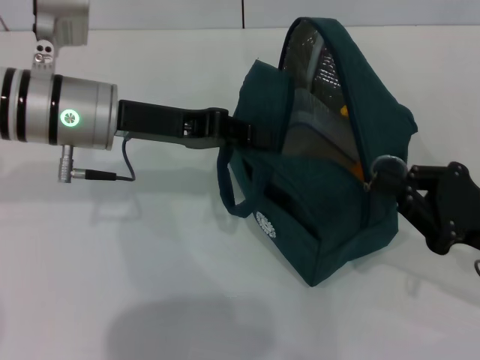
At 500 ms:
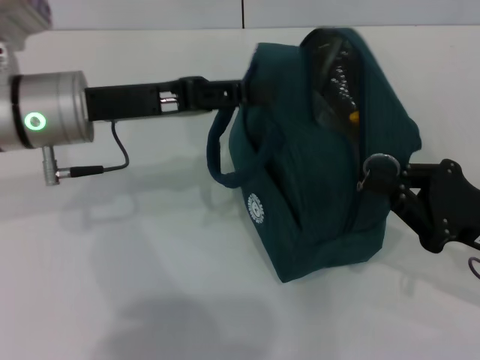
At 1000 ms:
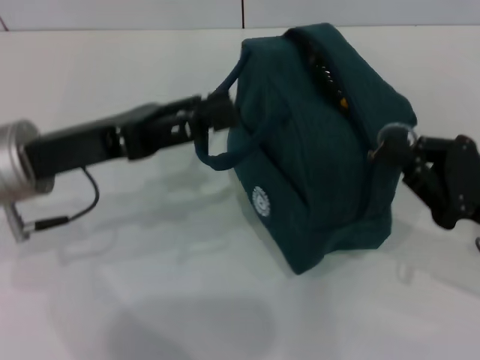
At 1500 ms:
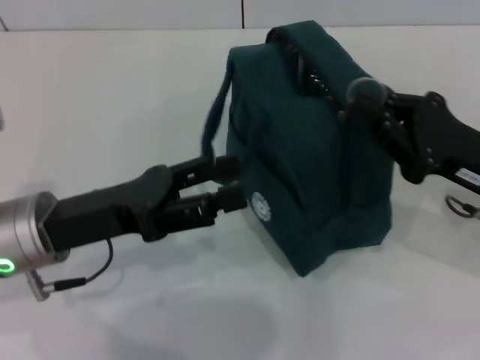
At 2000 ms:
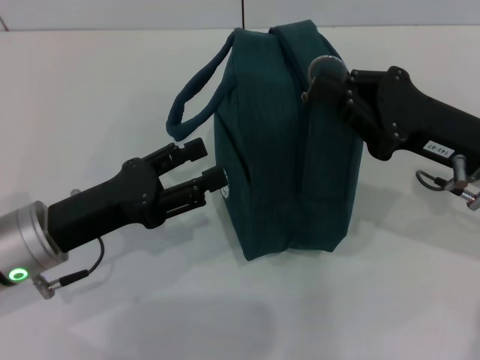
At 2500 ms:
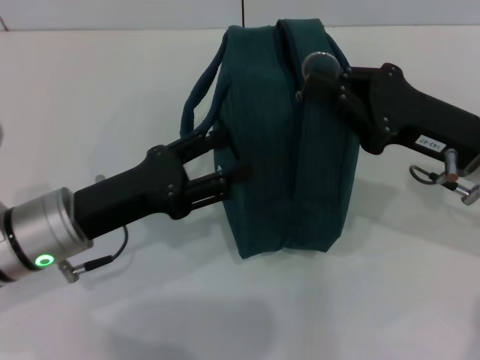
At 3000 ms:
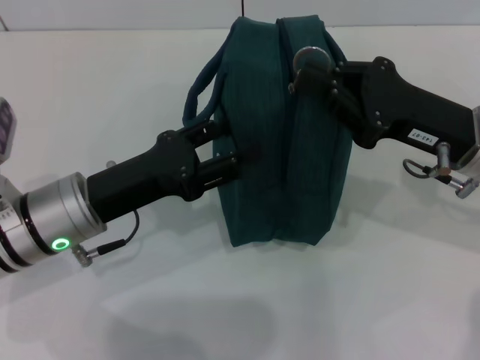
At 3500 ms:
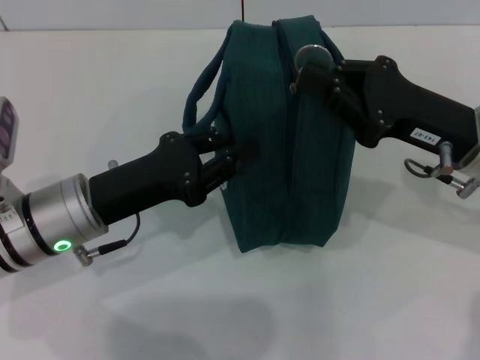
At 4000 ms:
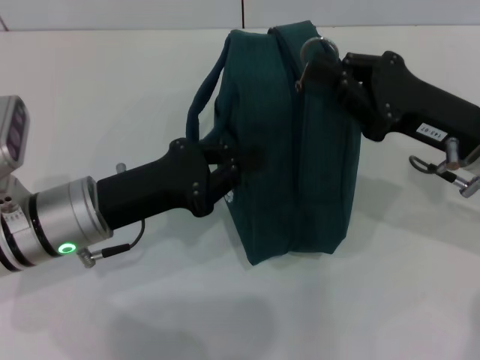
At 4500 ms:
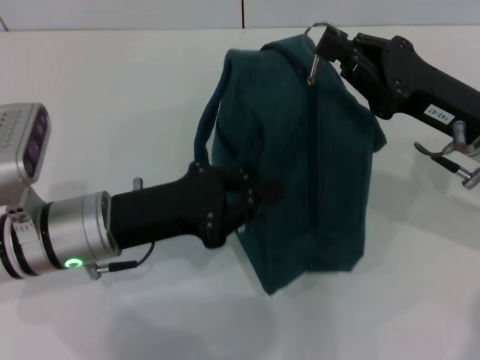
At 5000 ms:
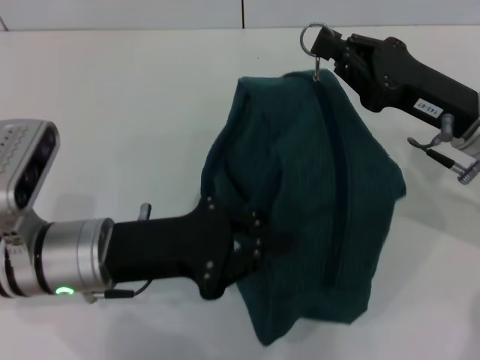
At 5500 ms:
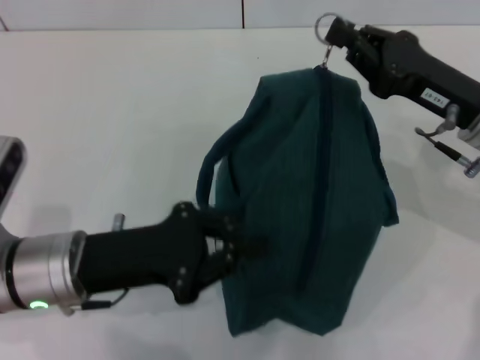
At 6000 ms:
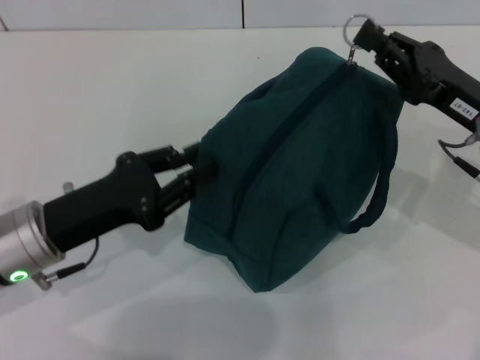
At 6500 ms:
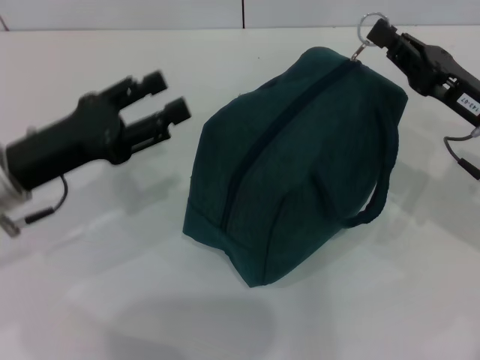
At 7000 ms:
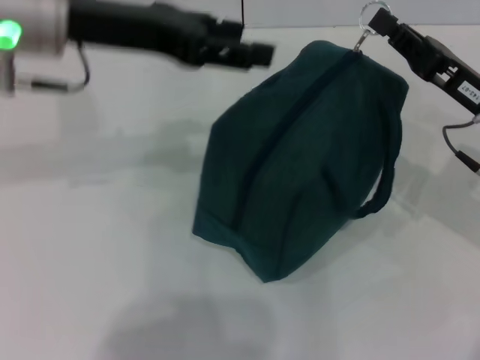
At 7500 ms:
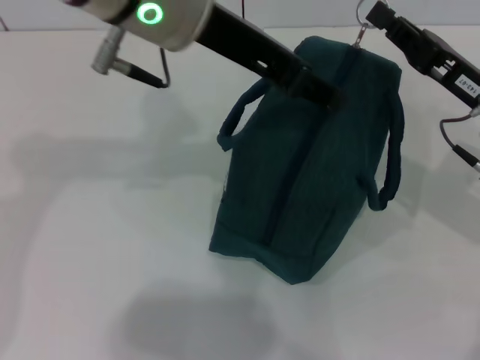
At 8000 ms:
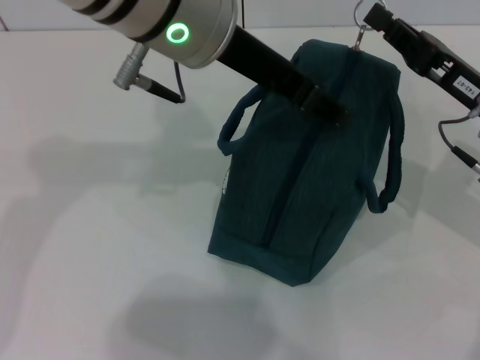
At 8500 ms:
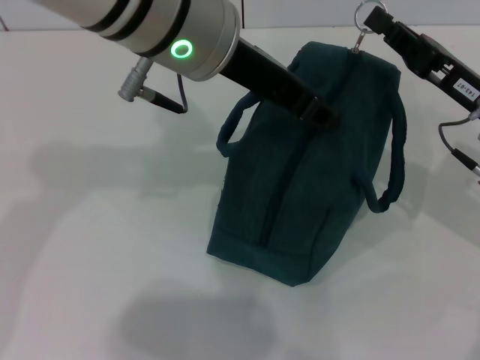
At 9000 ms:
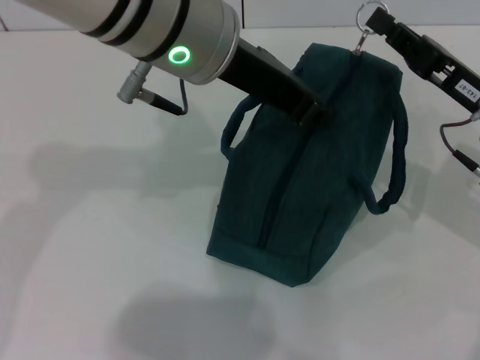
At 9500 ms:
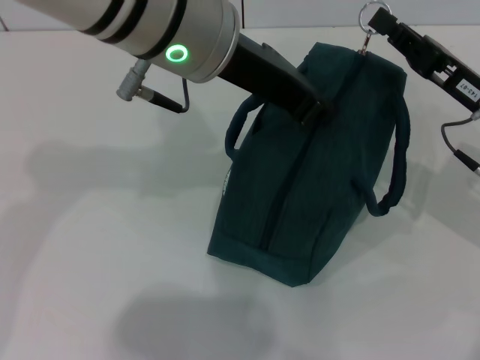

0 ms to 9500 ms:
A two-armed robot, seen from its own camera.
0 ms to 2000 ms: The left gripper travels backward, downward and to the left by about 15 cm, and opens up. Meanwhile the right gripper moves forward and to the left, approximately 10 cm.
2000 ms to 4000 ms: The left gripper closes up.
5500 ms to 7500 ms: The left gripper travels upward, to the right and forward by roughly 25 cm, and opens.
7500 ms to 9500 ms: The left gripper closes.

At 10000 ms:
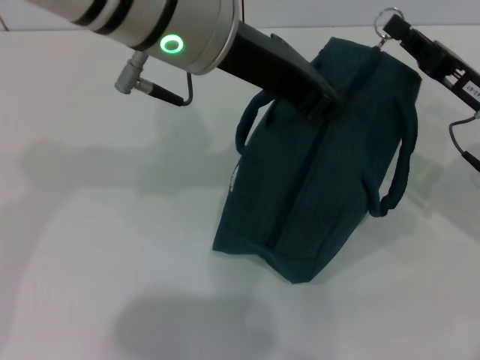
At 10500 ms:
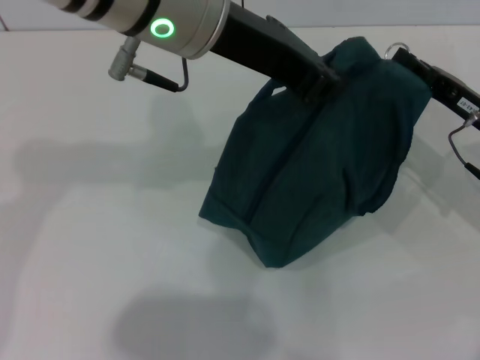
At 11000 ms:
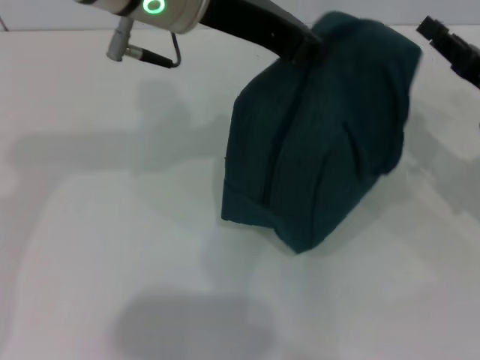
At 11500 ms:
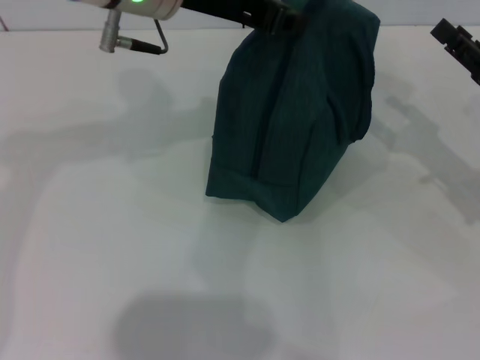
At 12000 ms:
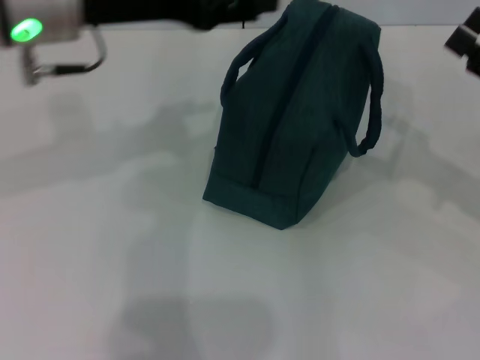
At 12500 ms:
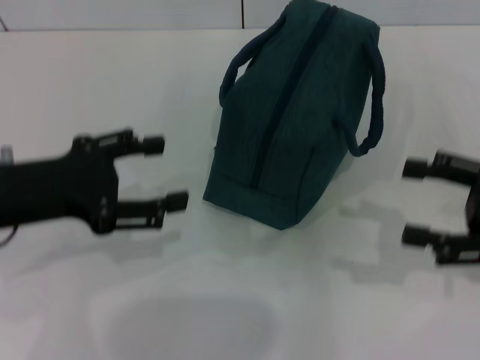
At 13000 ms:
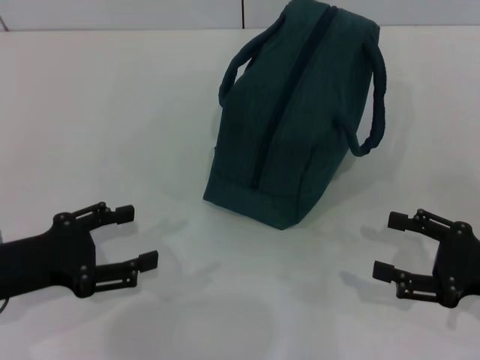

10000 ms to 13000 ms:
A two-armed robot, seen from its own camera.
10000 ms to 11500 ms: The right gripper opens, while the left gripper moves forward, roughly 5 cm.
11500 ms to 13000 ms: The left gripper shifts about 30 cm to the left, downward and backward, and opens its fingers, while the right gripper goes about 10 cm backward.
